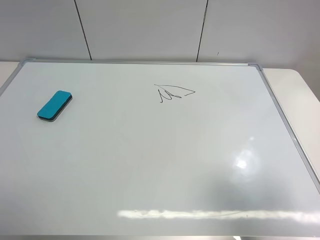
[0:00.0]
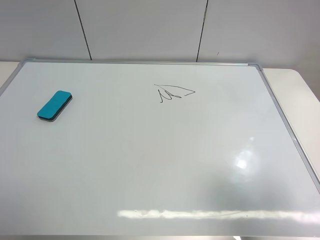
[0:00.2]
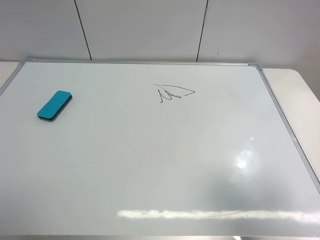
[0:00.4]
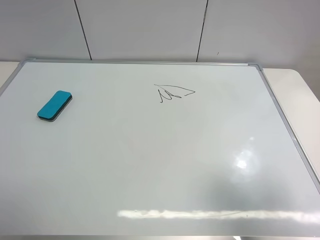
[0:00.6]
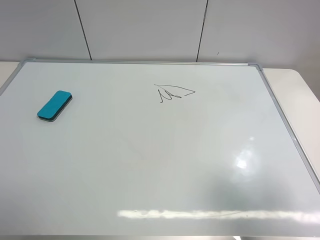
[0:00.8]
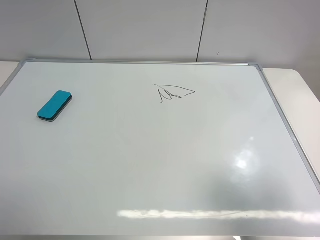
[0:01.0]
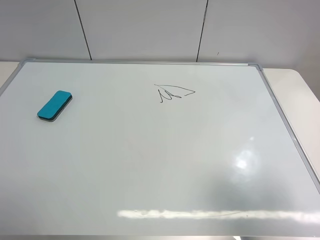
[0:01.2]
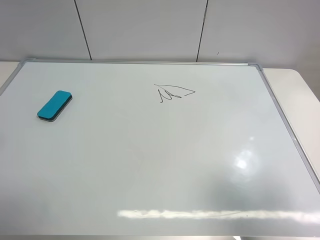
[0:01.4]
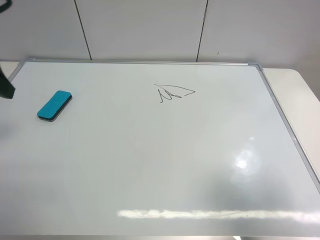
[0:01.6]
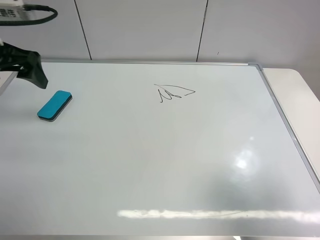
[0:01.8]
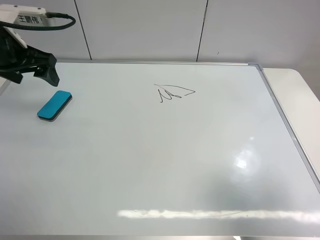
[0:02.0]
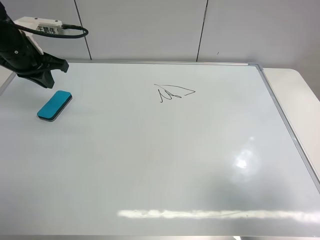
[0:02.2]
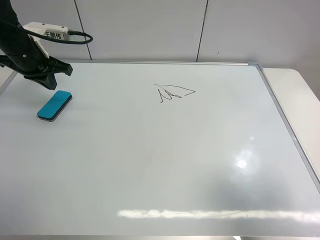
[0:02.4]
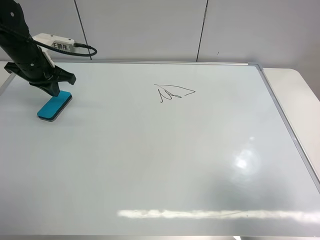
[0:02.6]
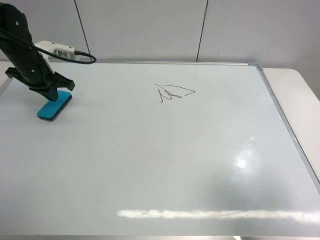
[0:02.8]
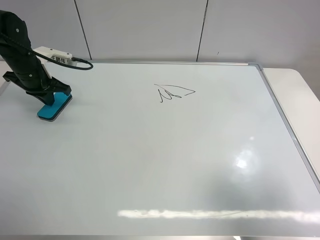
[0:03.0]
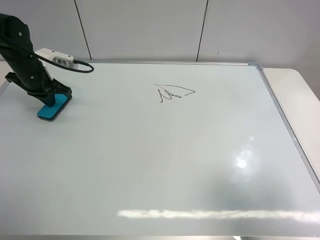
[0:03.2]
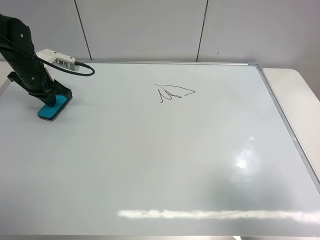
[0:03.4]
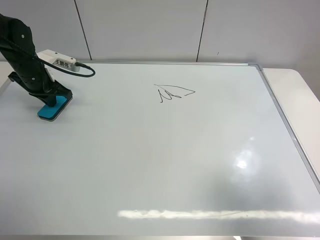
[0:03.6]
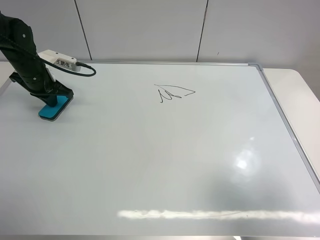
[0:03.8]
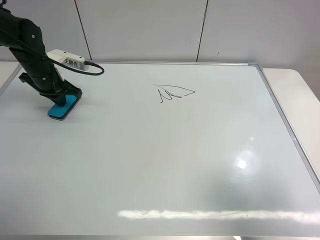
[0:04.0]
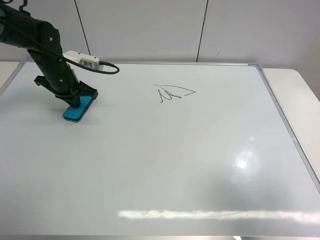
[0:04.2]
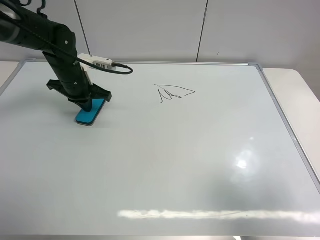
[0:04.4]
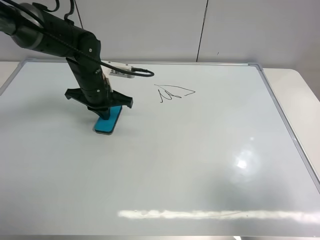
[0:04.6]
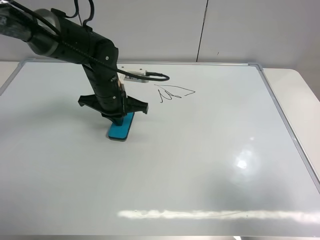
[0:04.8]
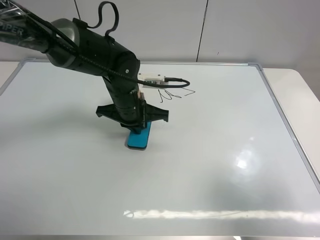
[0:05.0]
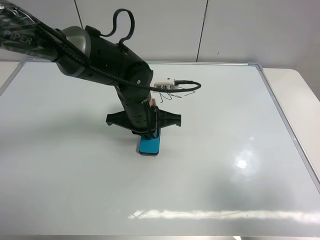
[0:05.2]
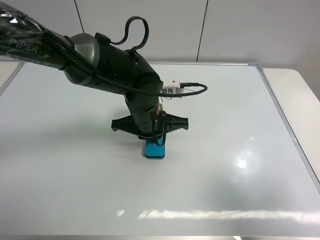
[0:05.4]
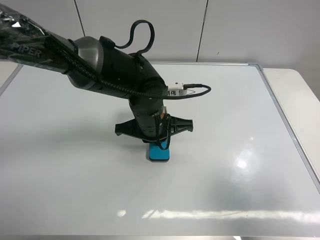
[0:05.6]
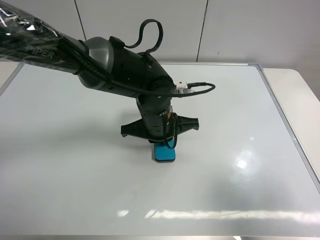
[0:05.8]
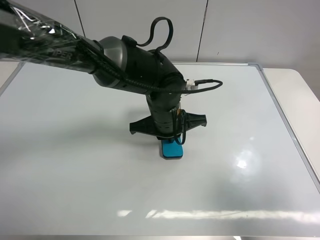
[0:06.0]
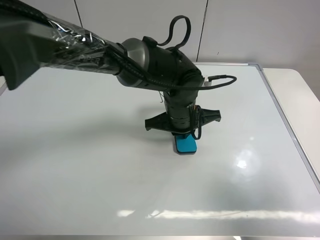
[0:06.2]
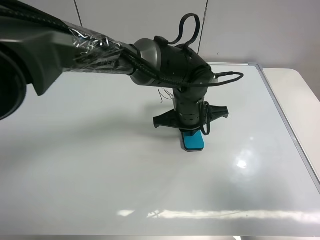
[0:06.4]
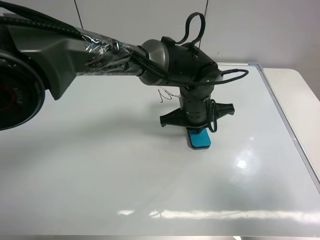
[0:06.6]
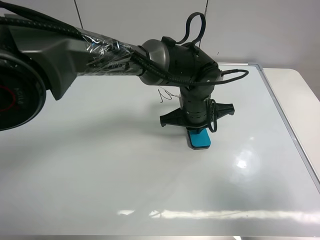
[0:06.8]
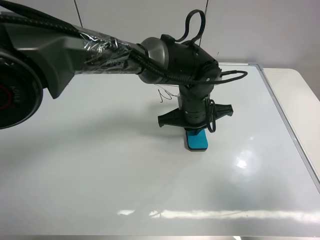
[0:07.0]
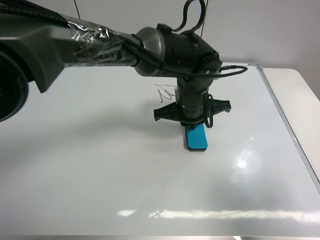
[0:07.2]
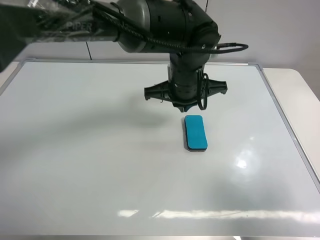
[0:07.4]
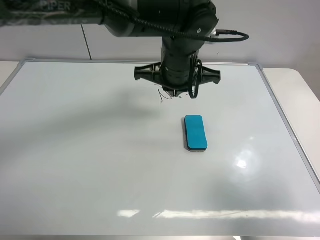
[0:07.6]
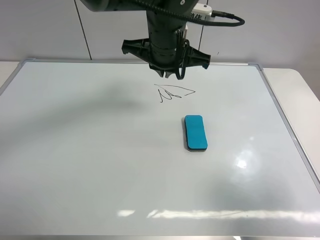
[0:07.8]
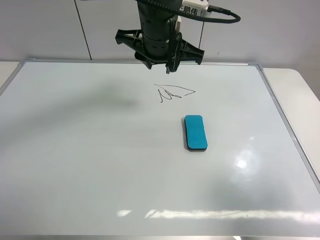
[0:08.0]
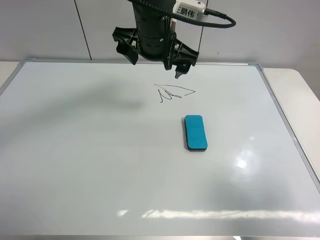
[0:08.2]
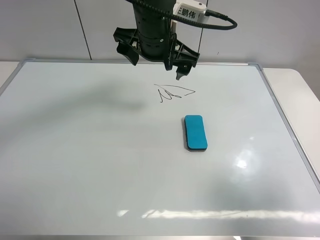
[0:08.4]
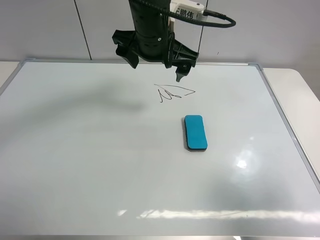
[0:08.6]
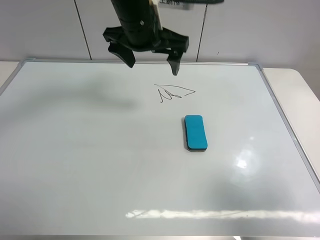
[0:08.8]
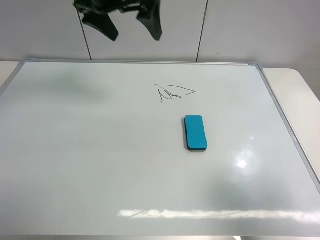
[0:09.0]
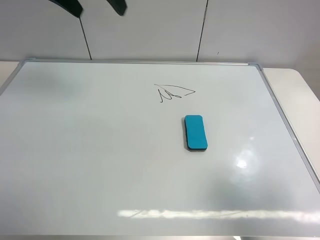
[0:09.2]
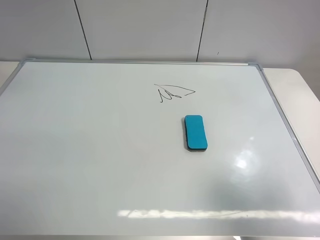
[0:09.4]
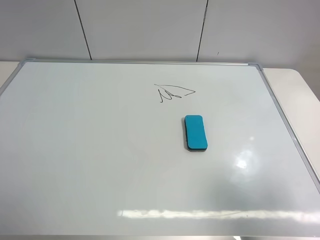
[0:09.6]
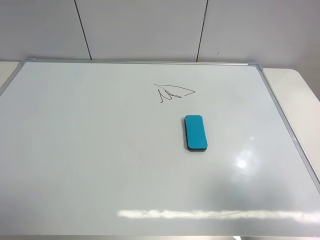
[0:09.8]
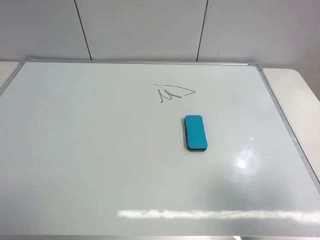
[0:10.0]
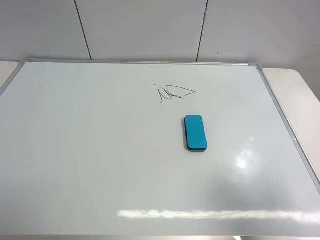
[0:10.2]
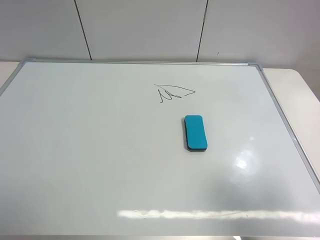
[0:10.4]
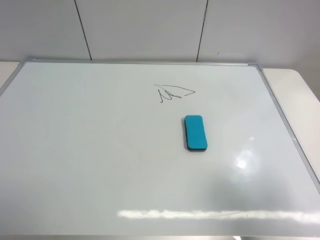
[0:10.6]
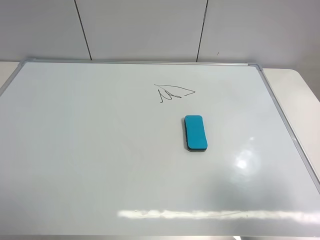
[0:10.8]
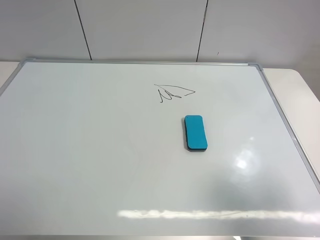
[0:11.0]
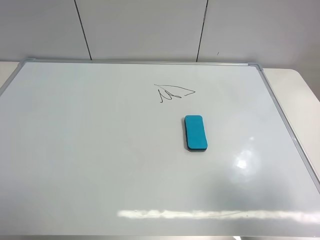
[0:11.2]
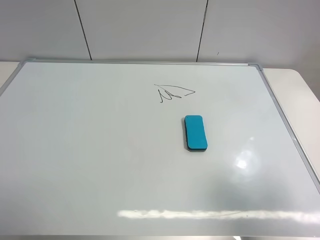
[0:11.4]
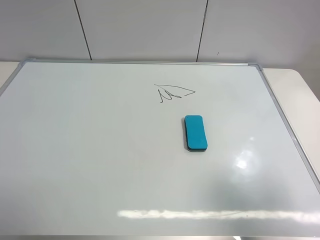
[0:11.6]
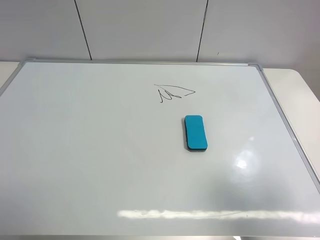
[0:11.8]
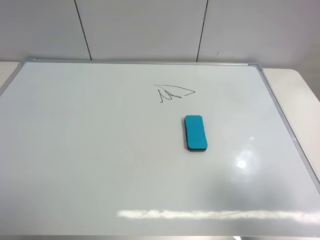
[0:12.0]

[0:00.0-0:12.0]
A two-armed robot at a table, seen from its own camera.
Task of the whole recording: use the left gripper to place the eraser in the right, use the right gripper to pick up the eraser, wipe the notes on the whiteboard clean, and then put it down.
Step, 0:00.0 to 0:07.2: Move the board eraser to the right of the whiteboard with left gripper.
0:00.0 to 0:01.6: The left gripper shifts some 25 cm forward.
0:01.6 to 0:03.0: The left gripper is displaced forward and downward by approximately 25 cm, and closes.
0:03.0 to 0:04.4: The left gripper shifts approximately 10 cm to the right.
0:04.4 to 0:06.0: The left gripper heads to the right and backward, covering about 25 cm.
0:06.0 to 0:07.6: The left gripper travels upward by about 10 cm.
0:07.6 to 0:09.0: The left gripper is displaced to the left and upward by about 20 cm, and opens.
0:09.0 to 0:10.4: The left gripper is displaced backward, upward and to the left by approximately 50 cm.

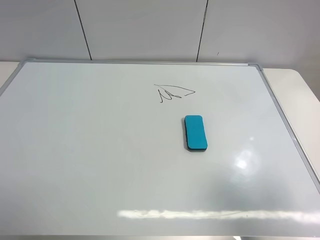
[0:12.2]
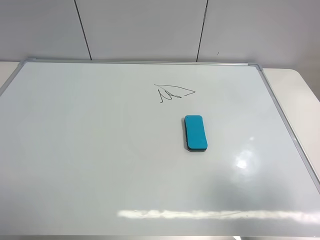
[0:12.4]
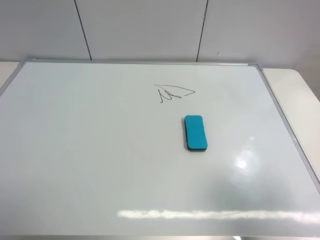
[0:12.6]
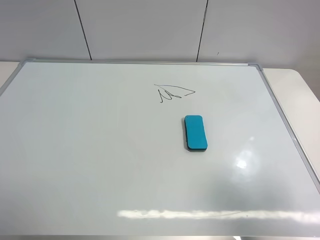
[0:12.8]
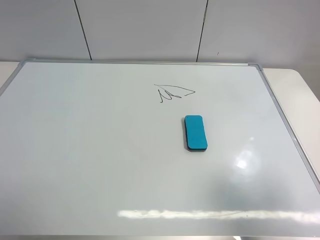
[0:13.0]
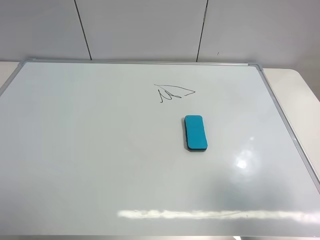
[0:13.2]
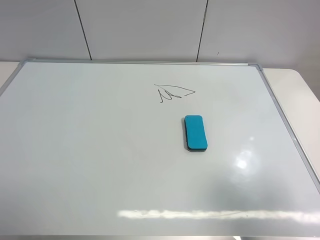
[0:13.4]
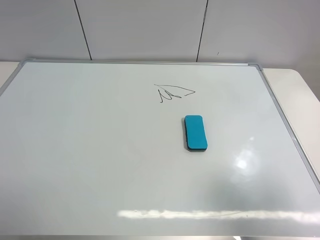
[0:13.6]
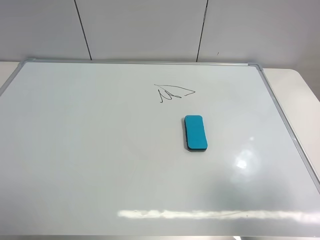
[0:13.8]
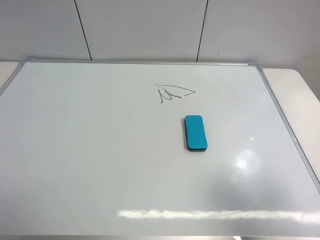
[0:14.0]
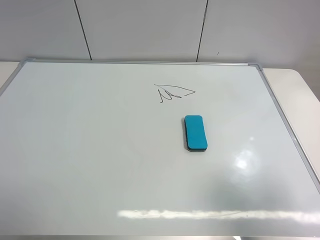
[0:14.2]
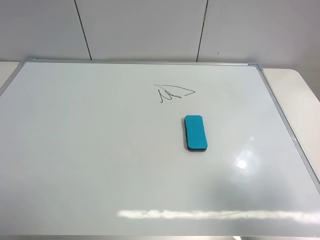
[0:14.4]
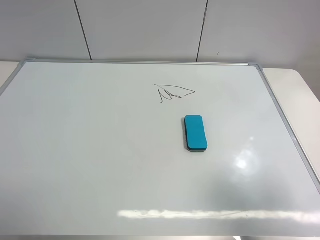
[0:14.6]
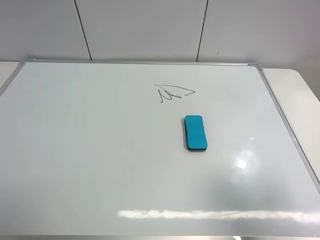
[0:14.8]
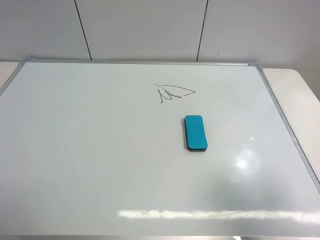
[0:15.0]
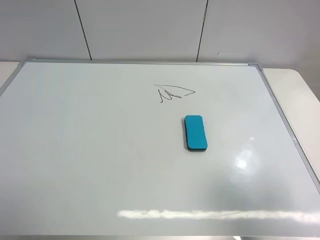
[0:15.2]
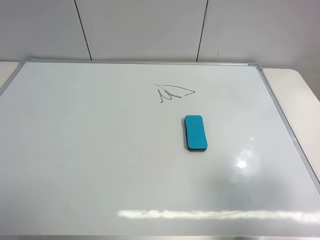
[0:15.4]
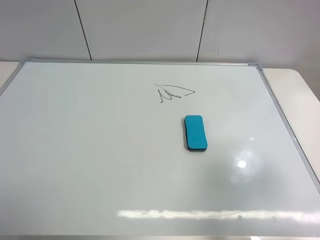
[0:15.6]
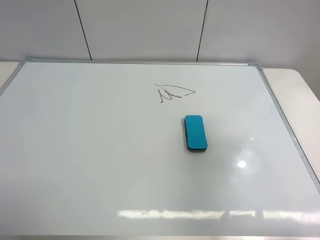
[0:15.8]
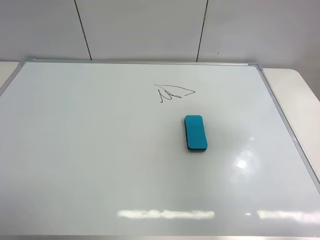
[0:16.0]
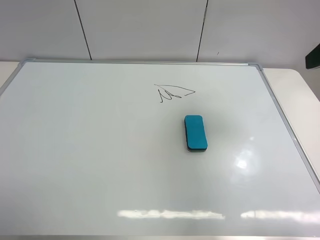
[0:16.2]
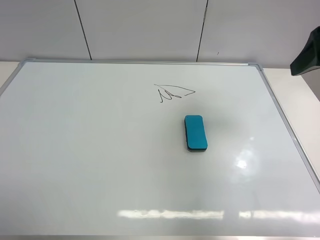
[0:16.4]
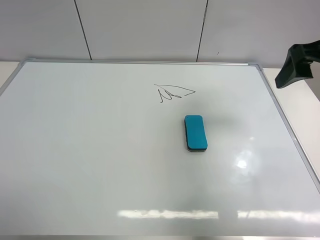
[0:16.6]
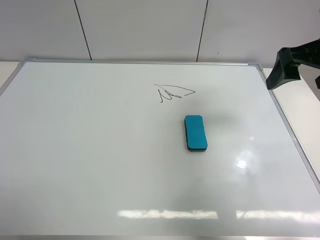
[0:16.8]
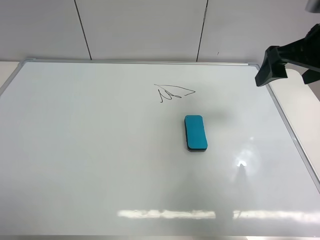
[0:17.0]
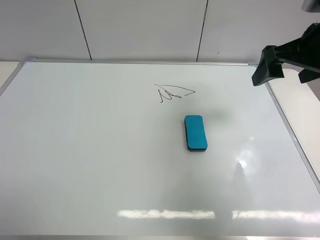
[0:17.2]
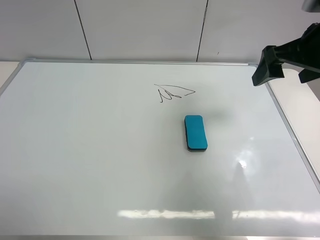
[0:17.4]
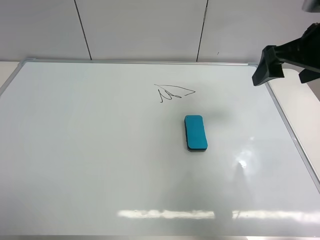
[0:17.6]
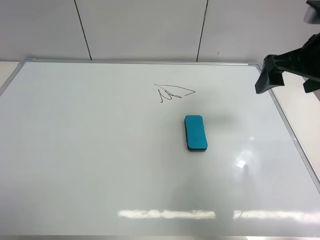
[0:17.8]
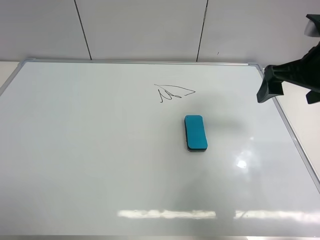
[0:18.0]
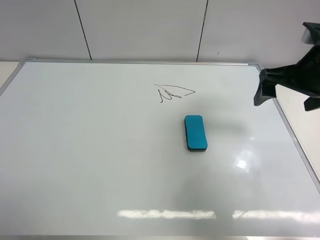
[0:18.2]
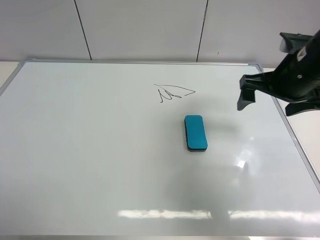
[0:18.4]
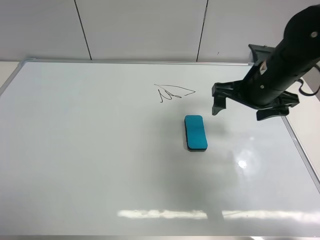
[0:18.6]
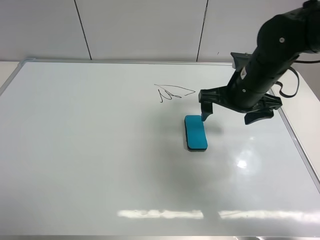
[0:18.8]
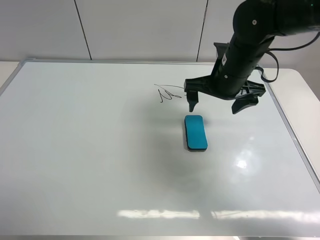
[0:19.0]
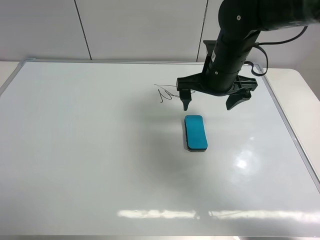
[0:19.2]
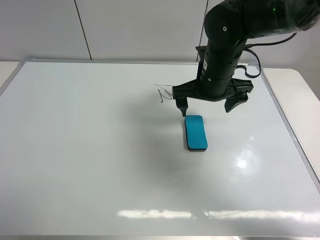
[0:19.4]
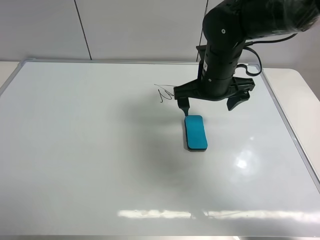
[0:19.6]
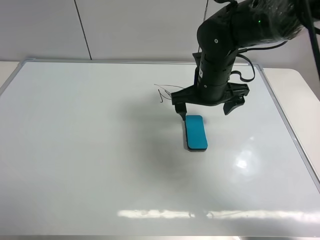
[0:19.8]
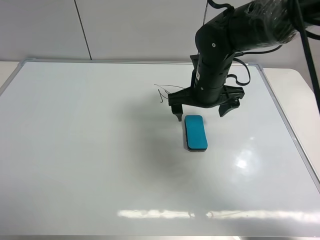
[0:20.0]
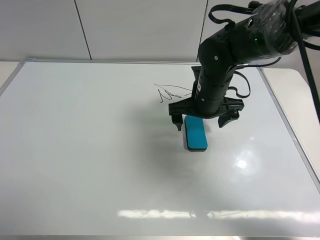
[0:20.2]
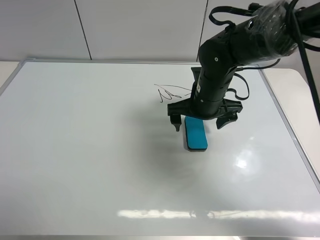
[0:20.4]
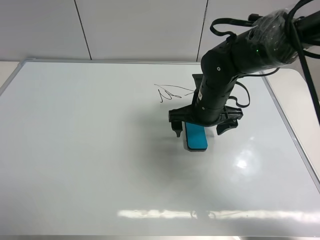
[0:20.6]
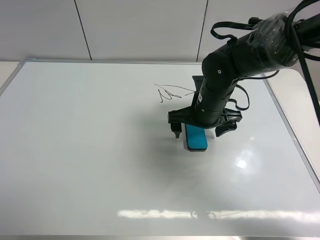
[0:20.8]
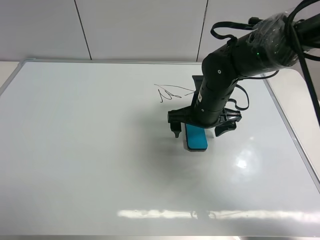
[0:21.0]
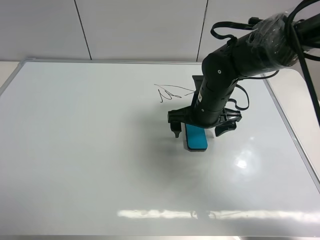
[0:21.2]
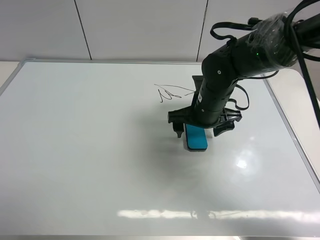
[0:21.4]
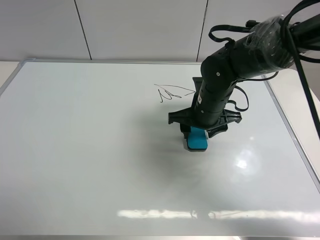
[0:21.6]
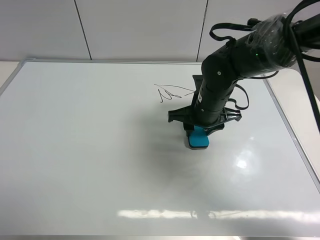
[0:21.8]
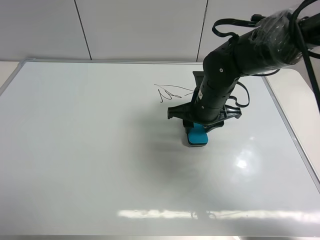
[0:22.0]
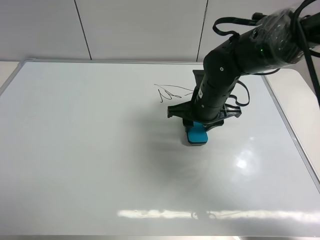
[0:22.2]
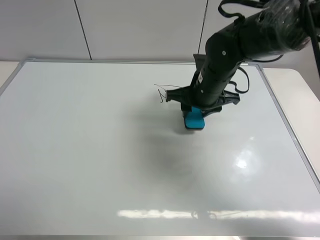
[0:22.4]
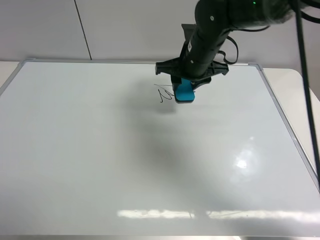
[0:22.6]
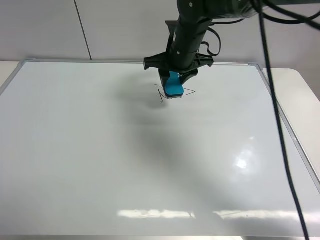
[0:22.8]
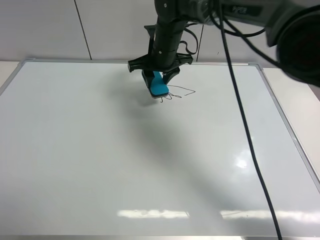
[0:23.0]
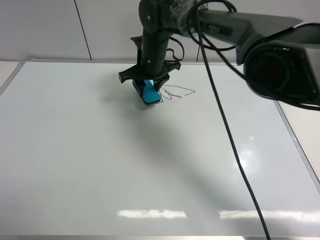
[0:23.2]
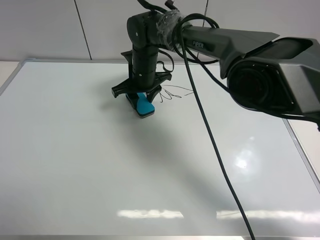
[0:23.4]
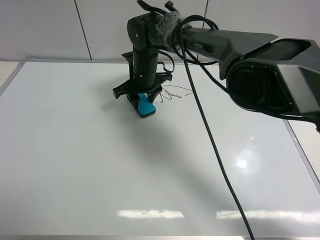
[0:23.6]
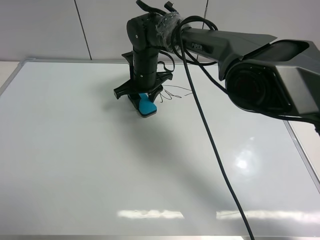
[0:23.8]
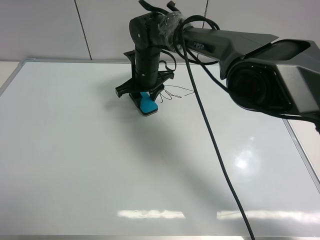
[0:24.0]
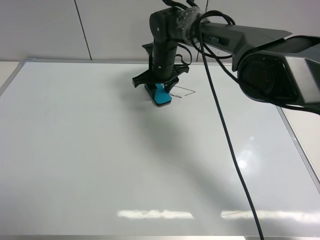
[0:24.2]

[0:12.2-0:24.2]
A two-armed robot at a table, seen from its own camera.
Task of the whole recording: use the left gripper to place the eraser in the right, use the right gripper to pick up the eraser, wipe the notes on the whiteboard clean, and then put it down.
Step, 0:12.2 to 0:22.2: Pick up the board eraser with right gripper.
0:13.8 to 0:15.2: The two grippers keep their place.
0:15.2 to 0:16.6: The right gripper goes approximately 25 cm forward.
0:16.6 to 0:18.2: The right gripper shifts about 5 cm downward.
0:18.2 to 0:19.8: The right gripper heads to the left, downward and forward, covering approximately 20 cm.
0:19.8 to 0:21.2: The grippers stay close to where they were, moving slightly.
0:21.2 to 0:22.6: The right gripper travels upward and forward by some 10 cm, and closes up.
0:22.6 to 0:24.2: The right gripper moves forward, downward and to the left, approximately 10 cm.
